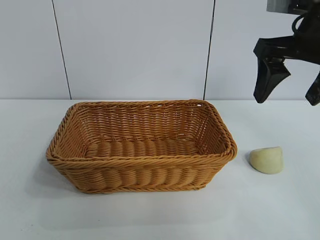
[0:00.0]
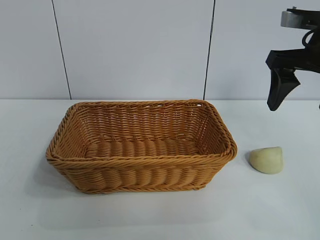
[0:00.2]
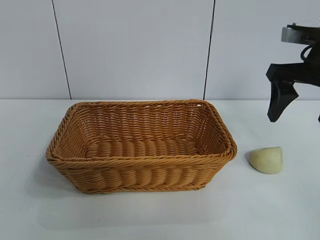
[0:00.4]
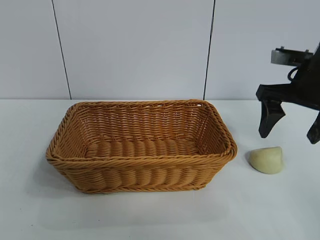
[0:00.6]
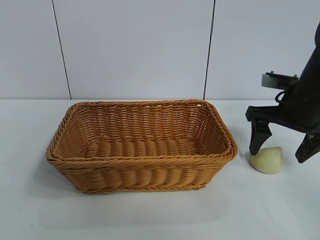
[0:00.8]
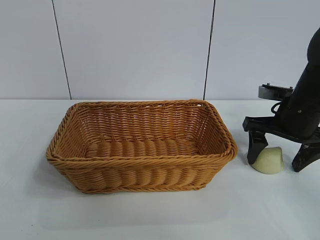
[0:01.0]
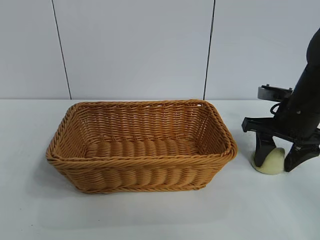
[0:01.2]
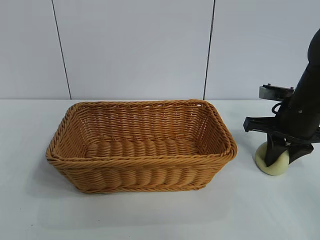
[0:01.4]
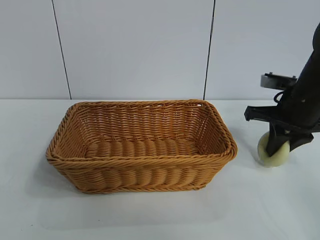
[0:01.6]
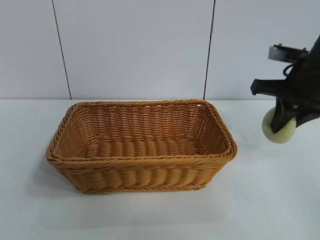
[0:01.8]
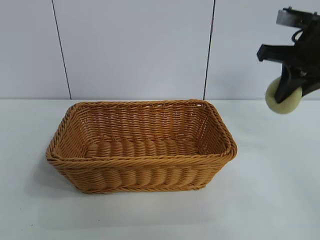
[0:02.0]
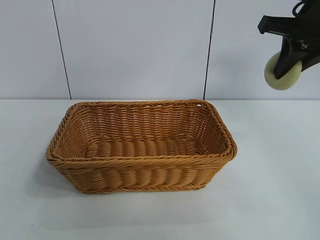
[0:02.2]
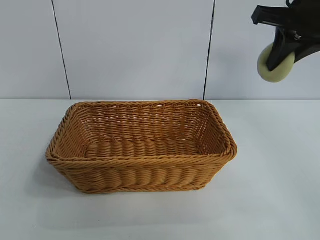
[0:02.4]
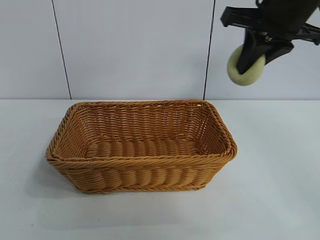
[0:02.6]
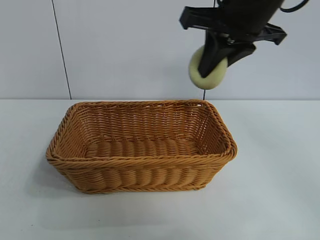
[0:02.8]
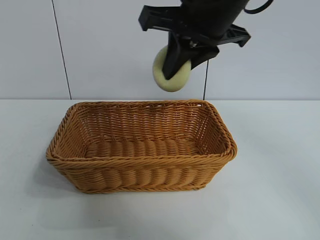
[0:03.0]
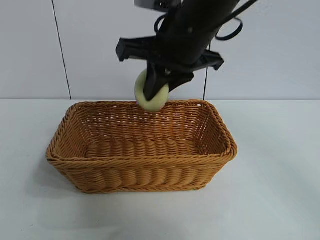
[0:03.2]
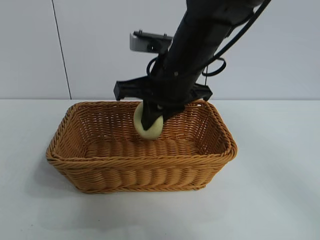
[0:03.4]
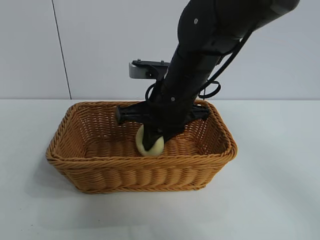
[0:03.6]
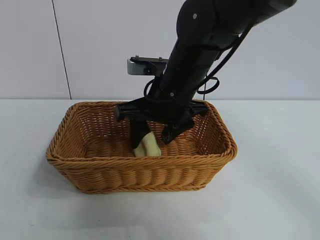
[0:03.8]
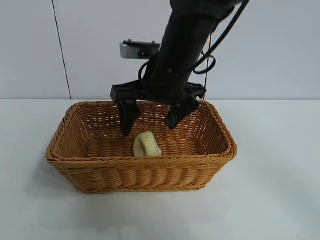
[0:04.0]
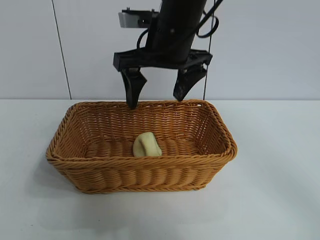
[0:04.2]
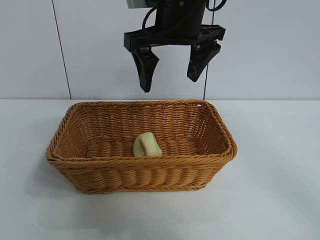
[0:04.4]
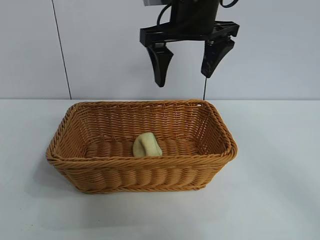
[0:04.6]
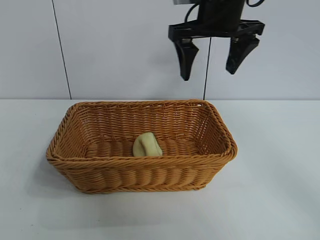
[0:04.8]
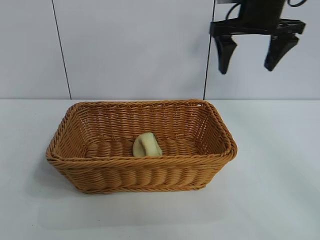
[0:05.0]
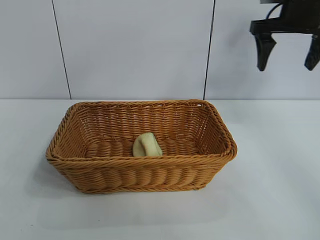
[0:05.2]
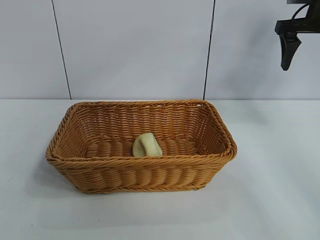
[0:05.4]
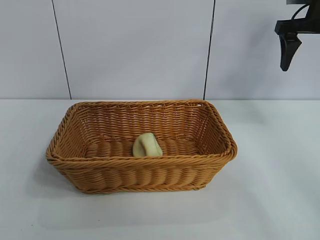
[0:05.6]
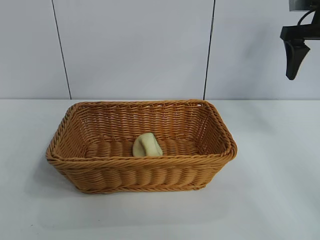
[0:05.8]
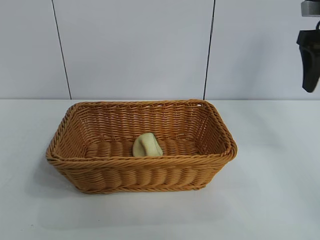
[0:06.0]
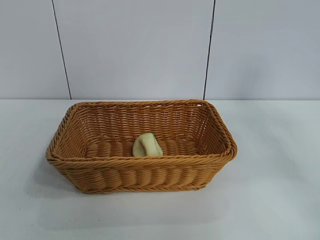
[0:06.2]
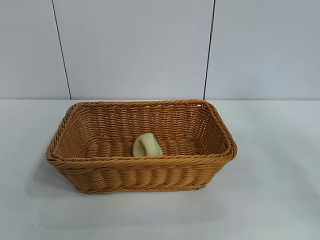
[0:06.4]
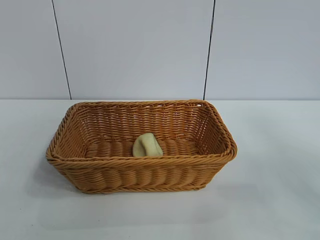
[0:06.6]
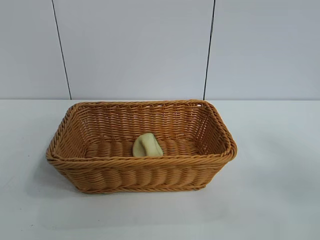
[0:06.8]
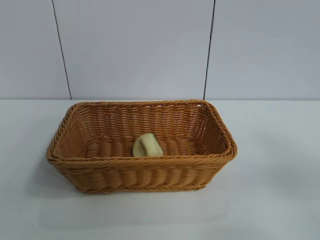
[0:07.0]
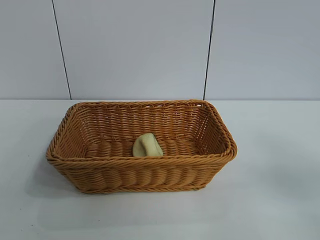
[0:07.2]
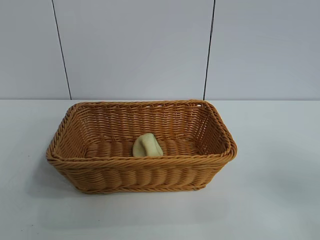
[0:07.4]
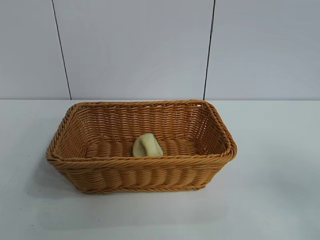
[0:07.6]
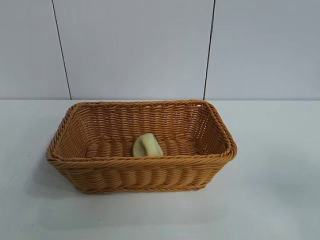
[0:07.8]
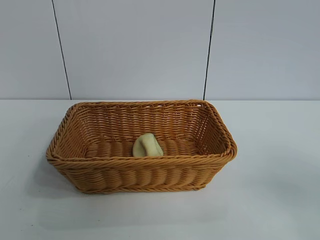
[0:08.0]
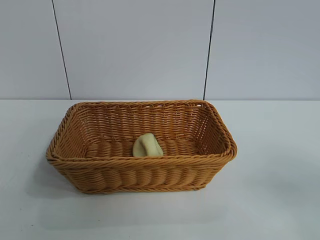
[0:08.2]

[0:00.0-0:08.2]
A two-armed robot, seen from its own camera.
Task of the whole recording: pick up the egg yolk pastry and put it into the basket.
Step, 0:01.4 to 0:03.6: Place the egg yolk pastry in the basket with right gripper.
